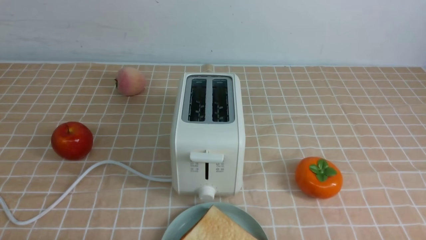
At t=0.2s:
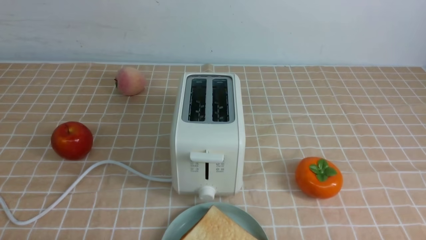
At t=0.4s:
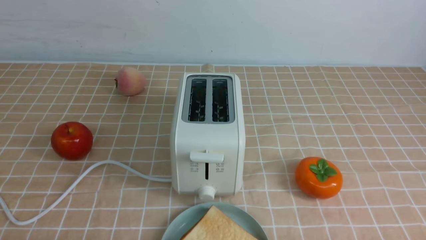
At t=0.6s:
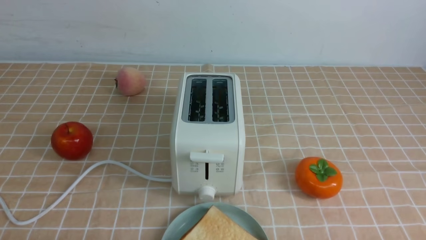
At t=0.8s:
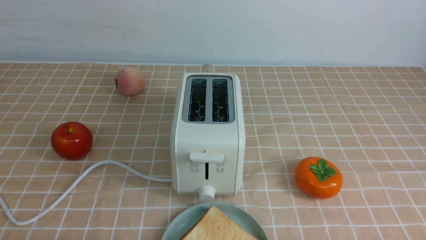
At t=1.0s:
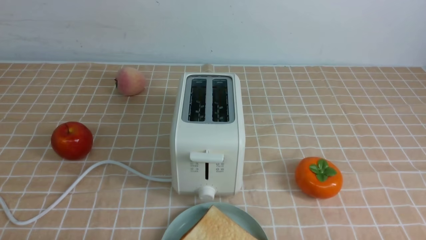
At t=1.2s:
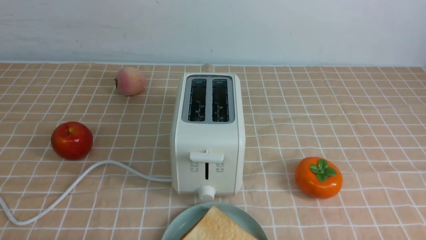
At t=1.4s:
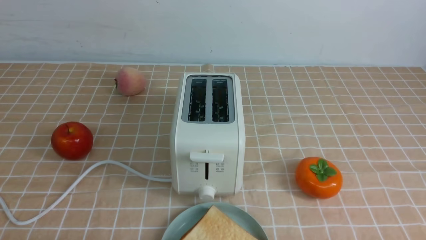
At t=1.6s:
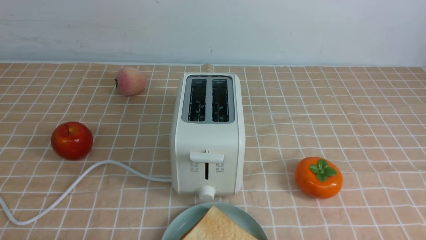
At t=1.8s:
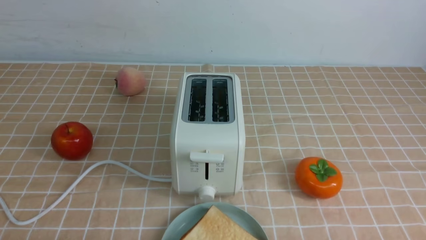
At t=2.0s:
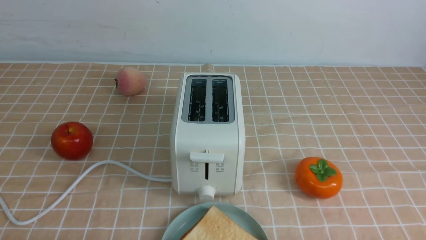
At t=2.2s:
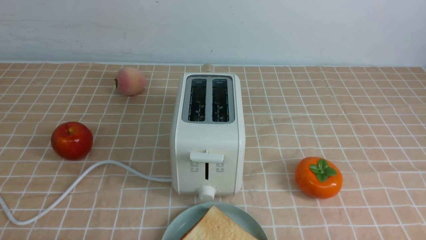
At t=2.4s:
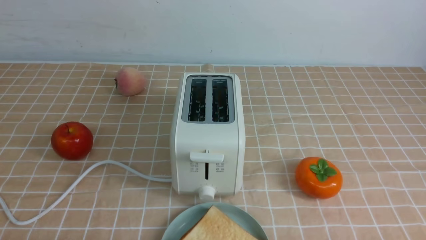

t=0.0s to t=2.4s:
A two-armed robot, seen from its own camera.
Task of the whole recording: take toasted bread from bread machine on light coffee tablecloth place on plate.
t=1.2s to t=2.4s: Both grippers stay put.

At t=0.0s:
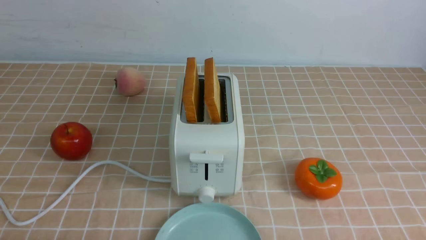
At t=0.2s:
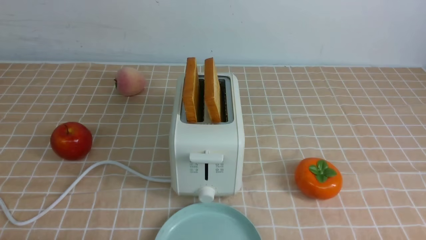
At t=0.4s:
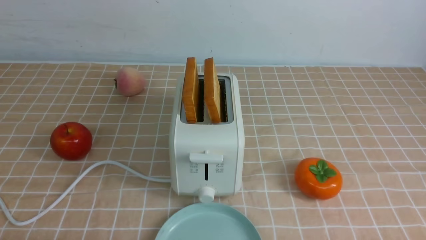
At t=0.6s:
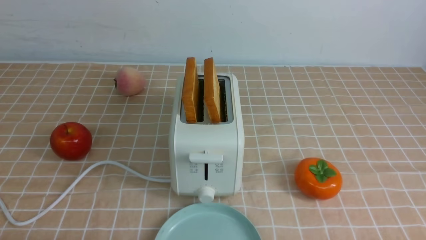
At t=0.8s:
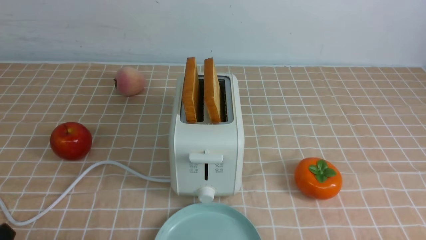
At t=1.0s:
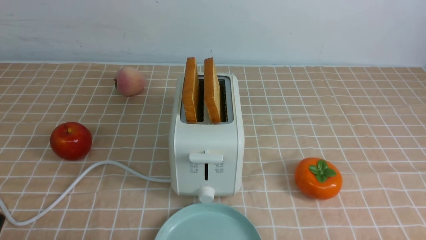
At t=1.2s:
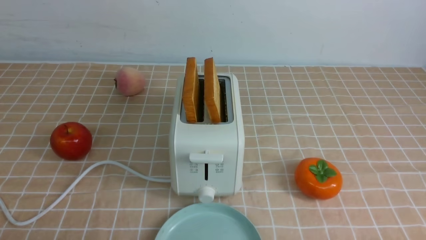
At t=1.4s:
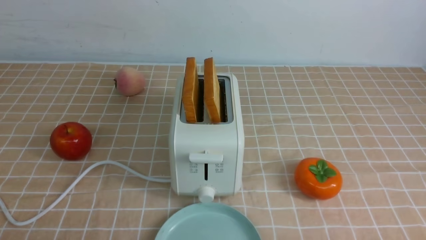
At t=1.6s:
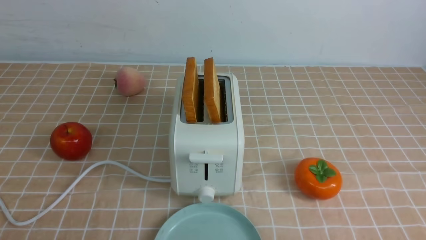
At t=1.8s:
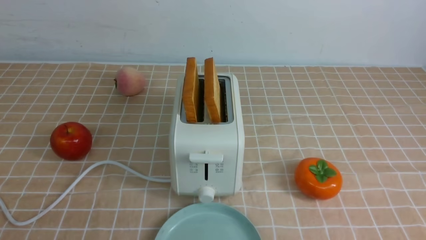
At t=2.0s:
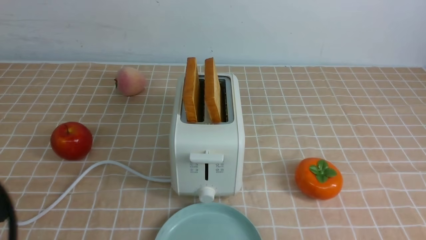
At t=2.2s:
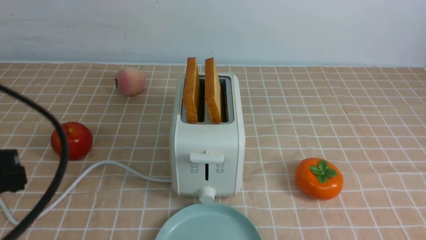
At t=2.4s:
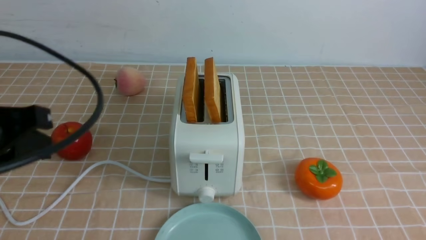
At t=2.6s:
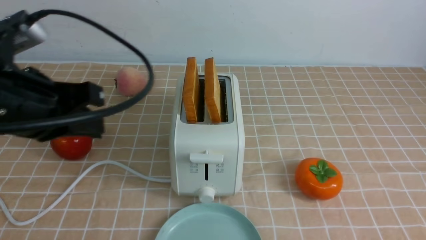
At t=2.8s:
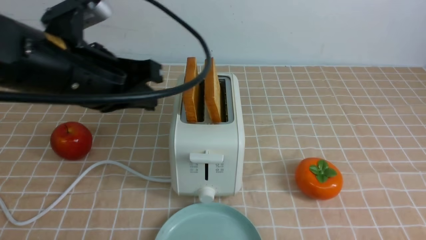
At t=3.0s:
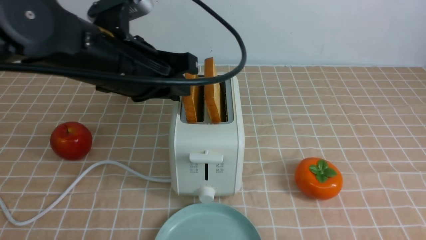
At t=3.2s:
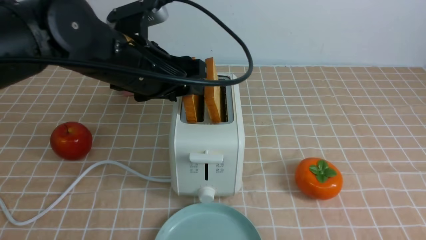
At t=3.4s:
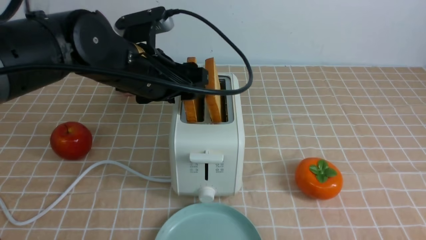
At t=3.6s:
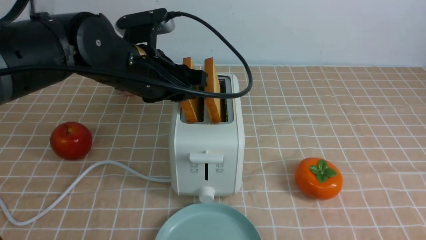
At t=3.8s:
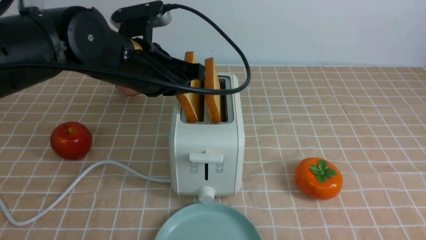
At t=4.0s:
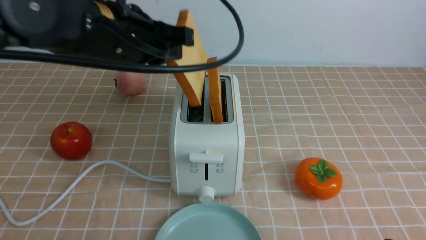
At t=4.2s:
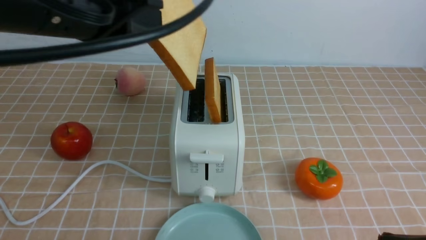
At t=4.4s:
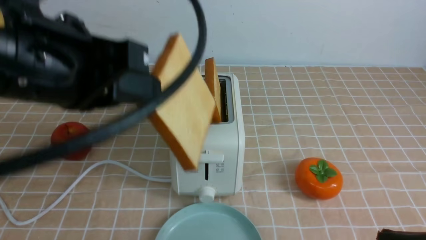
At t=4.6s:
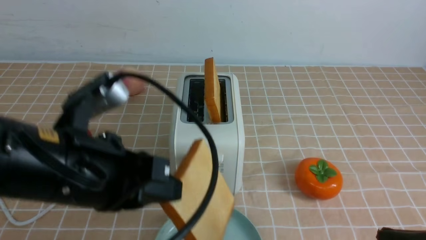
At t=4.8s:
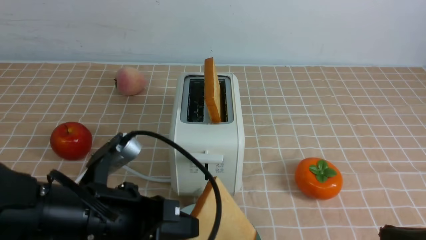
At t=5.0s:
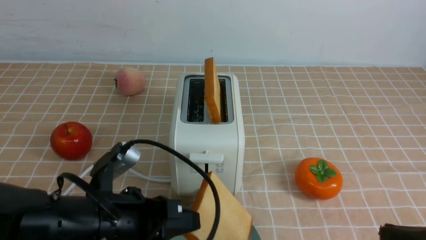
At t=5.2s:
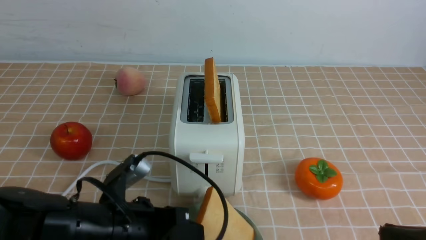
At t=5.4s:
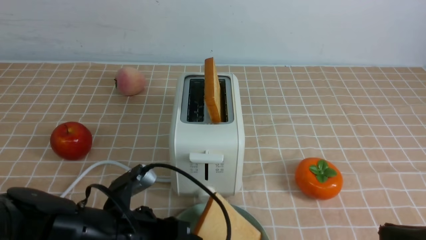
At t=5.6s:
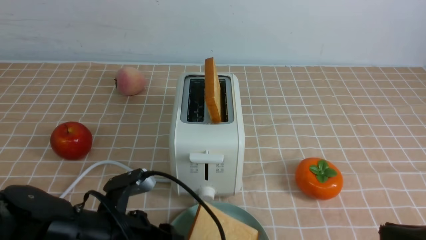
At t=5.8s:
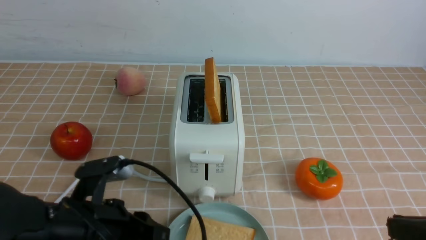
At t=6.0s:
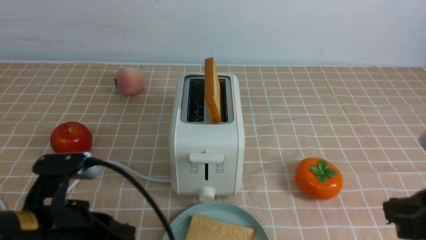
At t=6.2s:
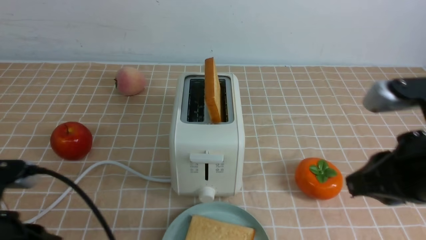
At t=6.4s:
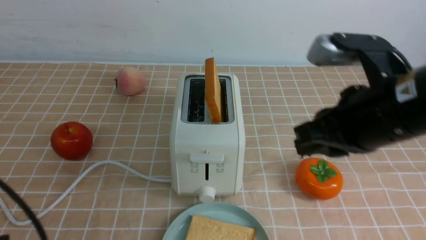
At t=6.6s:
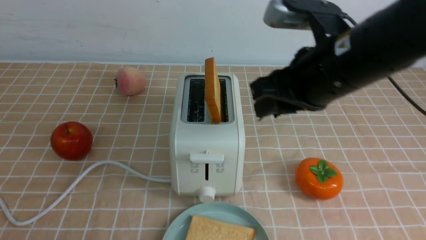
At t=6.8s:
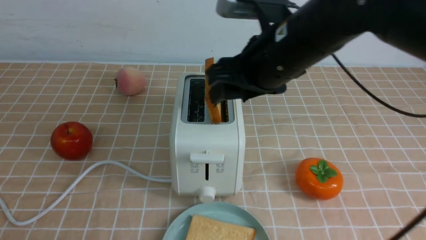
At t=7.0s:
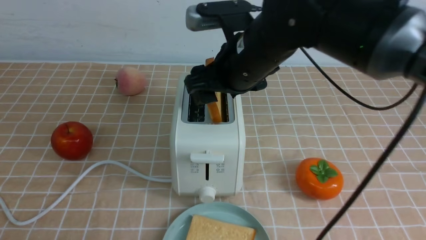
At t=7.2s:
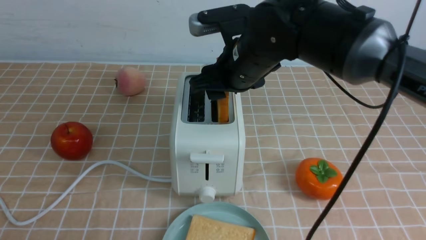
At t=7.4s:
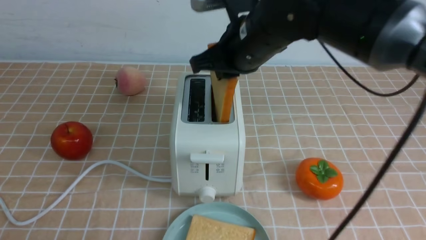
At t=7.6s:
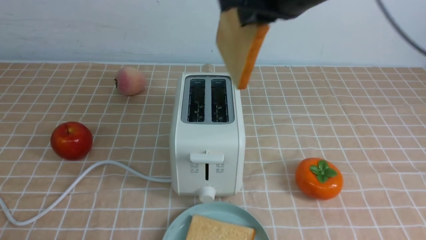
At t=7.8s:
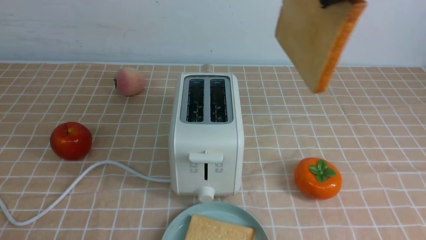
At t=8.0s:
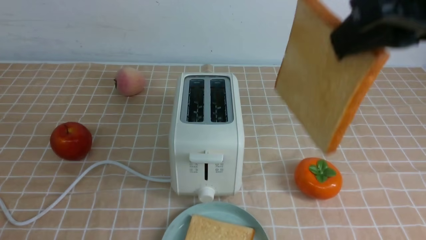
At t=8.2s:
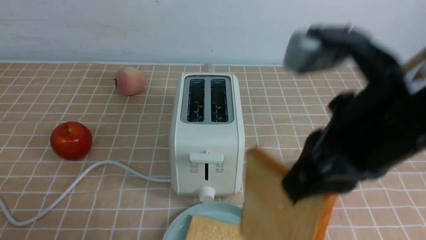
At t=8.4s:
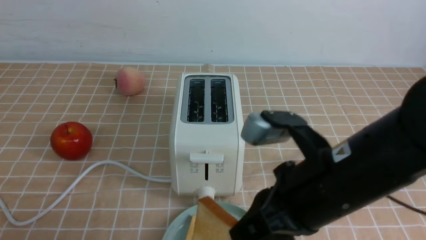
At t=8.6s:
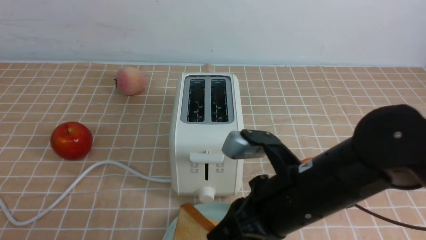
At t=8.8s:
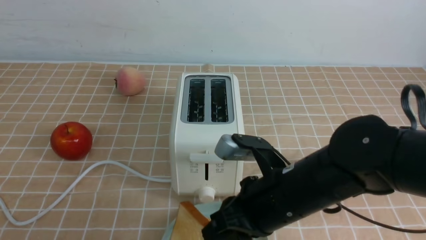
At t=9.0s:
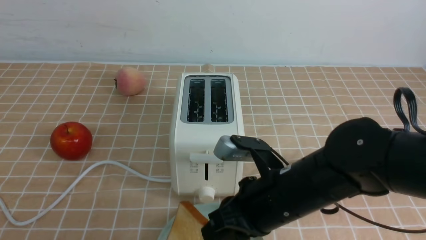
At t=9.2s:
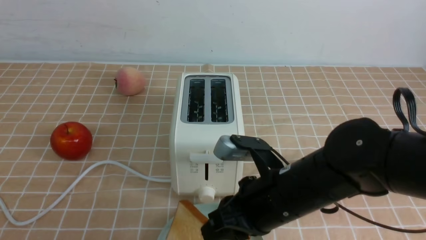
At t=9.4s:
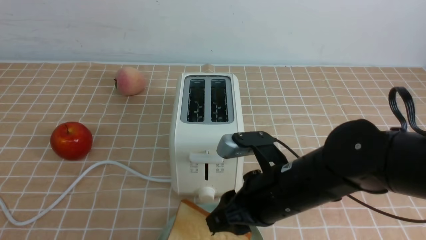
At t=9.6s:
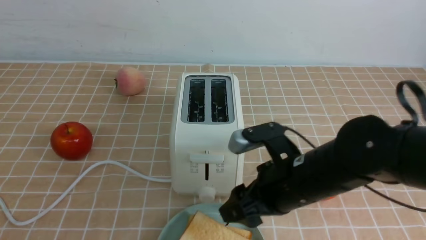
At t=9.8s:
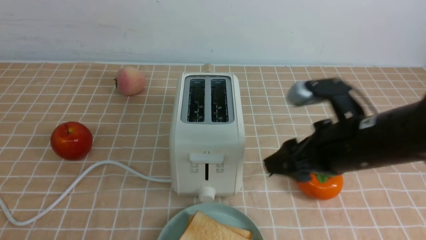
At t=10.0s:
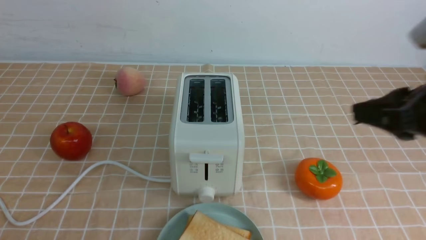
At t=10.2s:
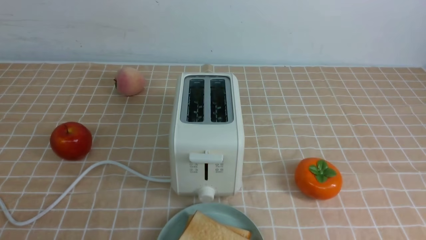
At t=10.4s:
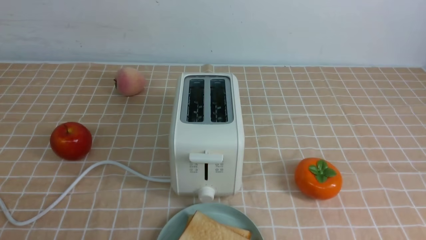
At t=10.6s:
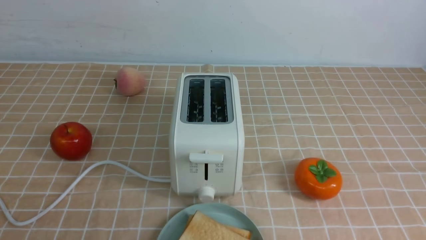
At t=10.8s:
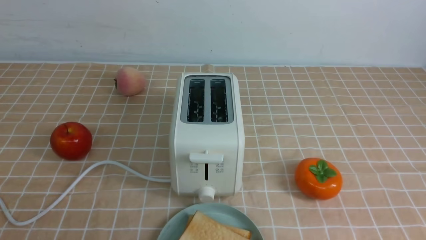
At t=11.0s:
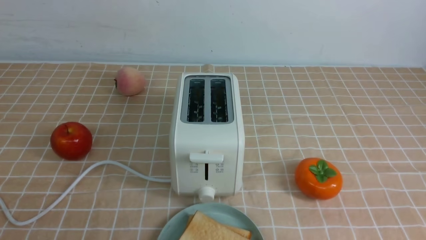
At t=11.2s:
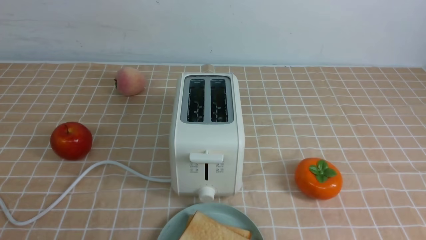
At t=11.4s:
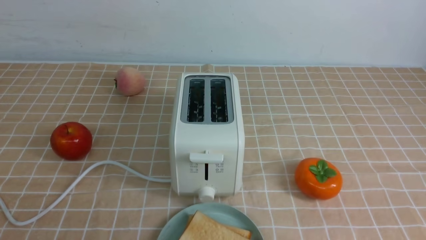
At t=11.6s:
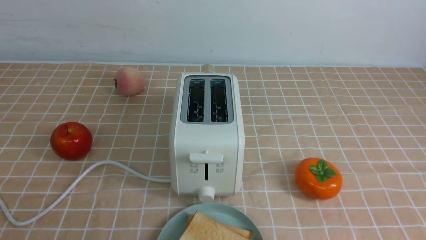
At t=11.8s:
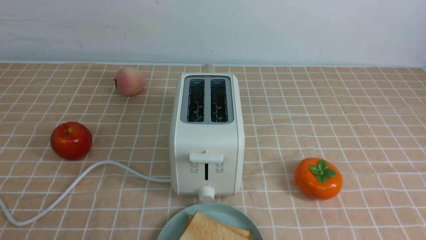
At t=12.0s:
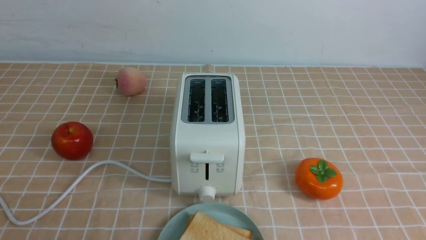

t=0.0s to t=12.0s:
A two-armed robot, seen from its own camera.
Task of the whole recording: take toasted bread from bread machine on light coffee tablecloth place on plate.
Step, t=0.0s to t=4.0s: use the left arm to take out a slice of bread.
Step, t=4.2s to t=6.0s: use the left arm to put a slice of bread into the empty plate.
Step, t=6.2s to t=7.4s: use the right arm to take out a slice of bread.
Step, t=7.6s to t=9.6s: use the right arm to put a slice of bread into the plate.
t=1.6s to t=3.0s: The left gripper is displaced forward, to the right and upward by approximately 30 cm, and opens. The right gripper goes approximately 10 cm to the left and upward, and closes up.
t=3.0s to t=4.4s: The left gripper travels backward by approximately 10 cm, and closes.
t=4.4s to t=6.0s: The right gripper shifts by about 5 cm. Meanwhile the left gripper is displaced downward by some 15 cm, and opens, then closes once more.
t=6.0s to t=7.6s: The left gripper is displaced backward, to the left and upward by about 20 cm; the right gripper shifts some 25 cm forward, upward and to the left, and opens, then closes once more.
t=7.6s to t=9.0s: The right gripper travels downward by about 25 cm.
t=9.0s to t=10.4s: The right gripper heads to the right, upward and backward, covering some 30 cm, and opens and closes again.

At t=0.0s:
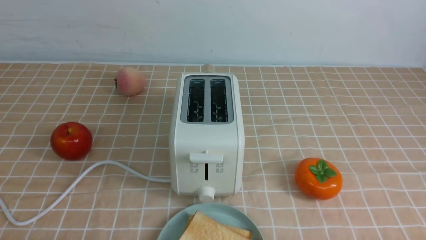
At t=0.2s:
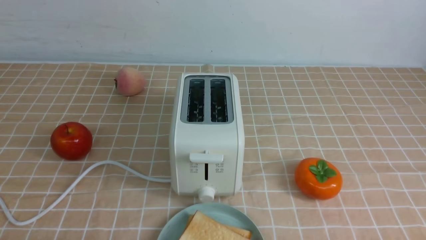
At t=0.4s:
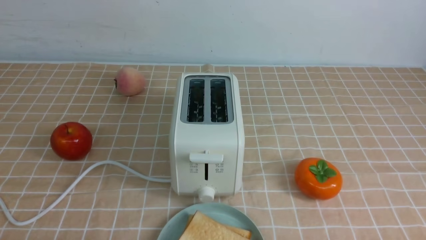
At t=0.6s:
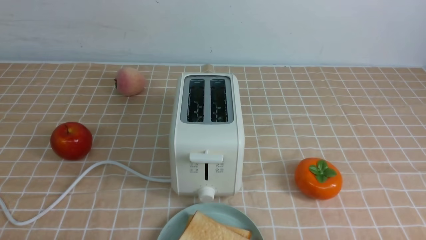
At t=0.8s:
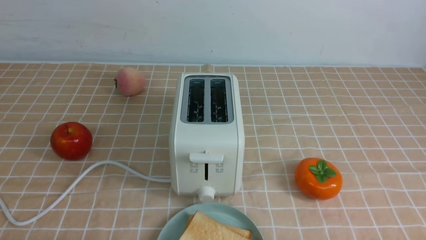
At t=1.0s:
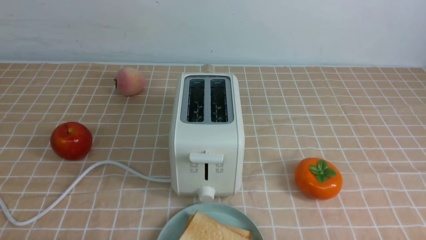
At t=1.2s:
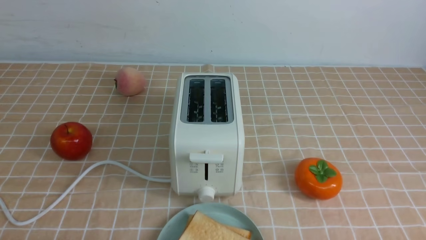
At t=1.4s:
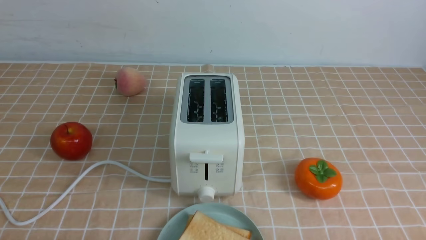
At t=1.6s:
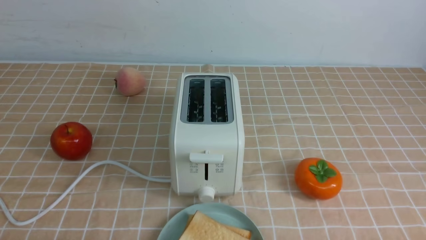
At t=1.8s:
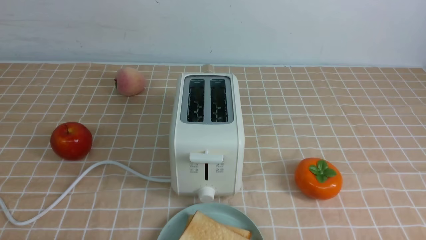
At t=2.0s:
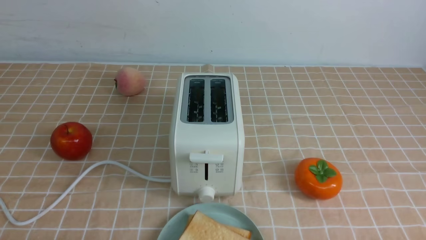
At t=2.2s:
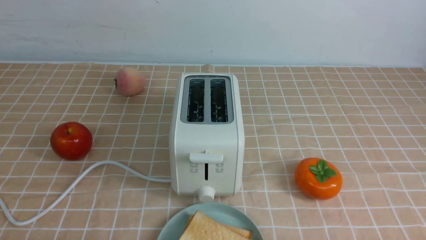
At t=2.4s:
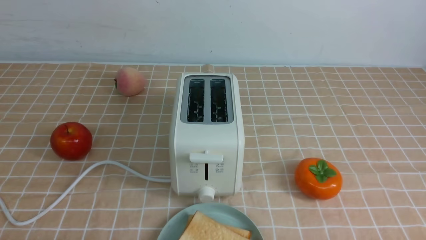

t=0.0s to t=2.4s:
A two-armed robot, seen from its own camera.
Task of the whole recording: take toasted bread from bread machine on light coffee tablecloth place on plate.
t=1.2s to t=2.4s: Both grippers stay about where they are.
